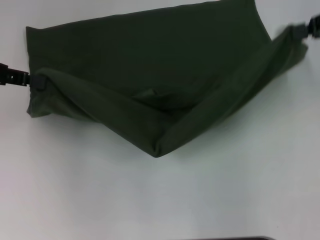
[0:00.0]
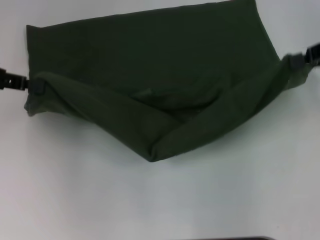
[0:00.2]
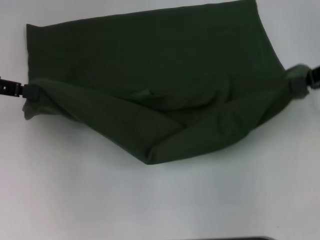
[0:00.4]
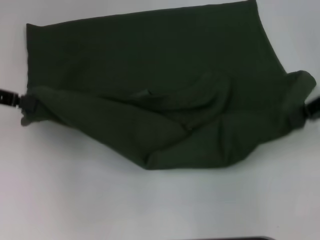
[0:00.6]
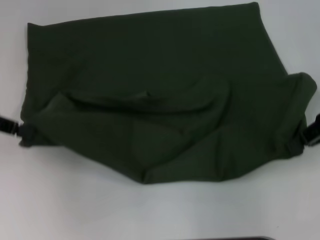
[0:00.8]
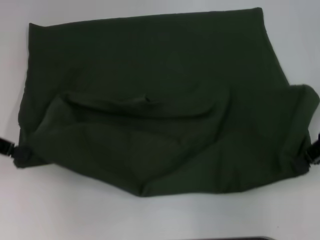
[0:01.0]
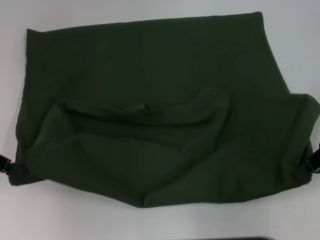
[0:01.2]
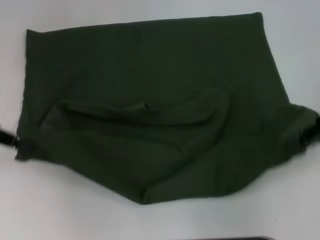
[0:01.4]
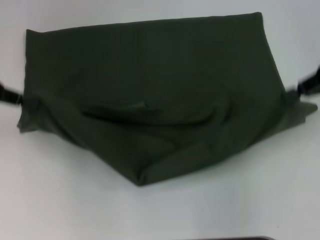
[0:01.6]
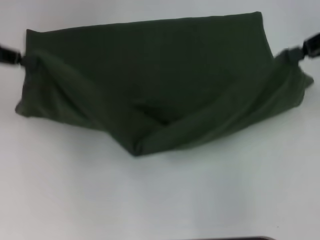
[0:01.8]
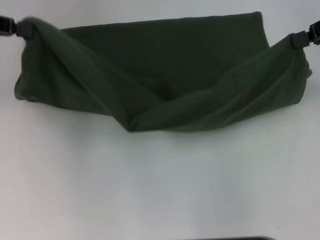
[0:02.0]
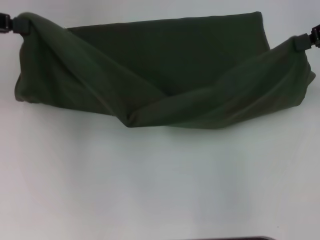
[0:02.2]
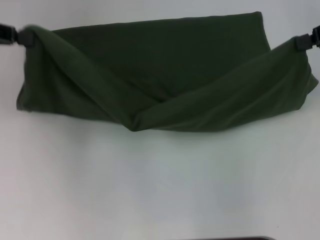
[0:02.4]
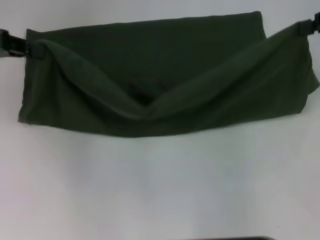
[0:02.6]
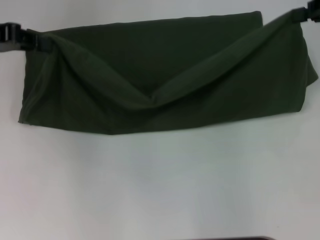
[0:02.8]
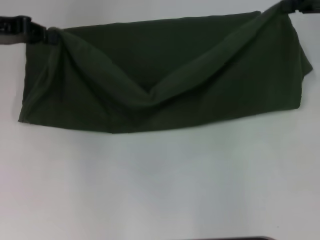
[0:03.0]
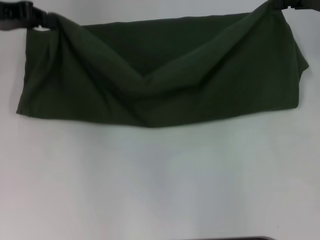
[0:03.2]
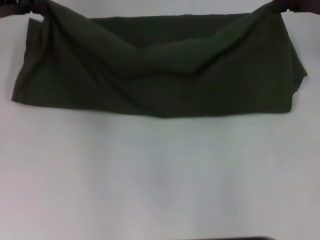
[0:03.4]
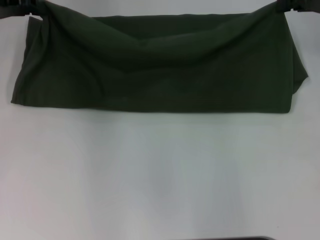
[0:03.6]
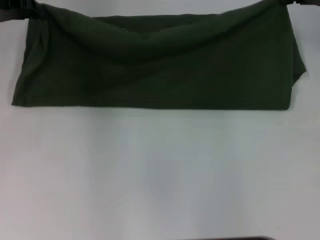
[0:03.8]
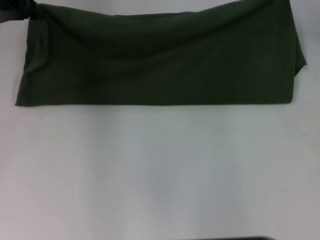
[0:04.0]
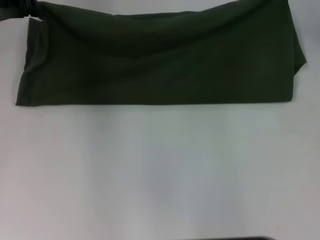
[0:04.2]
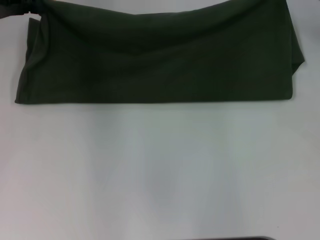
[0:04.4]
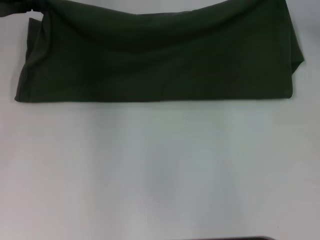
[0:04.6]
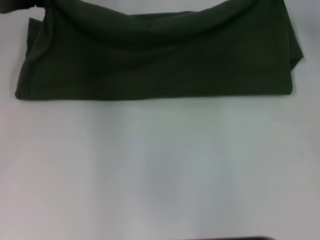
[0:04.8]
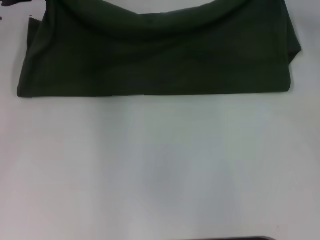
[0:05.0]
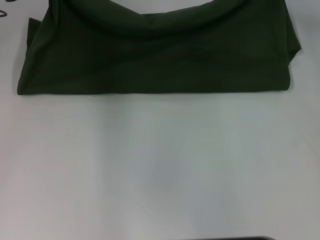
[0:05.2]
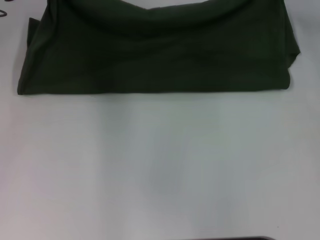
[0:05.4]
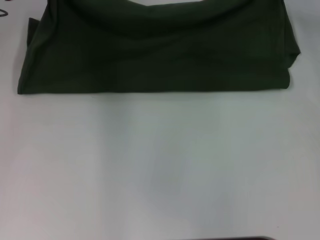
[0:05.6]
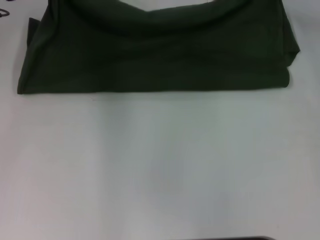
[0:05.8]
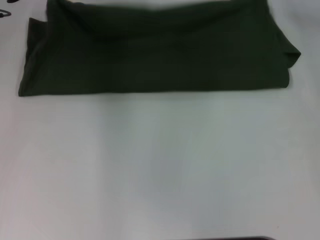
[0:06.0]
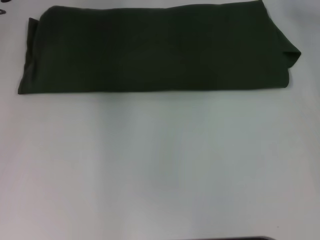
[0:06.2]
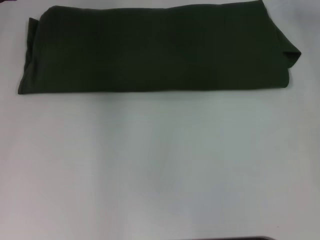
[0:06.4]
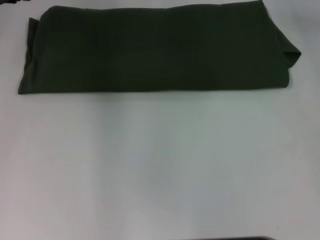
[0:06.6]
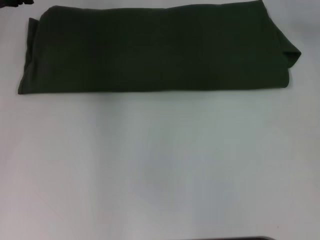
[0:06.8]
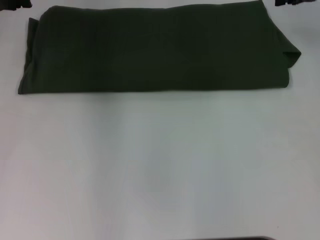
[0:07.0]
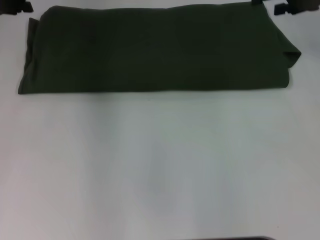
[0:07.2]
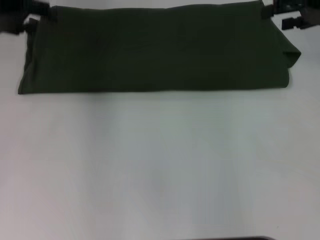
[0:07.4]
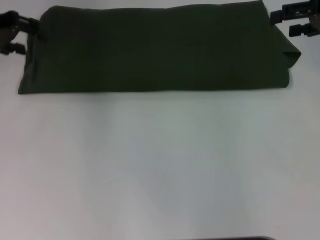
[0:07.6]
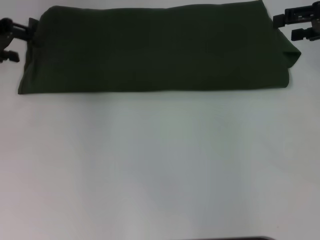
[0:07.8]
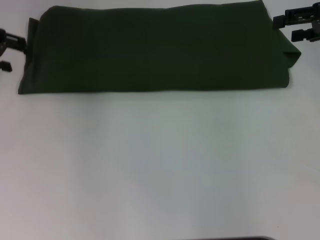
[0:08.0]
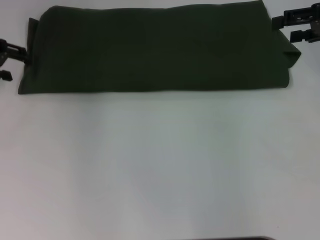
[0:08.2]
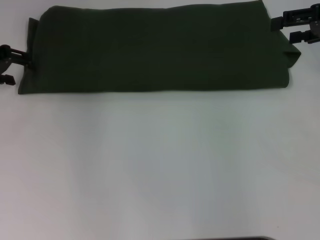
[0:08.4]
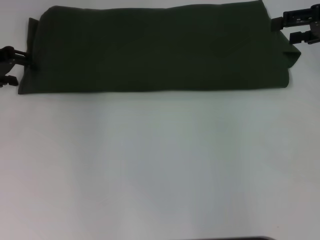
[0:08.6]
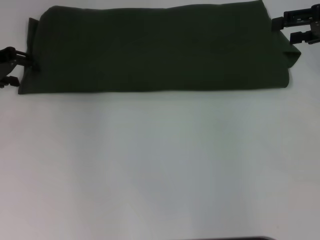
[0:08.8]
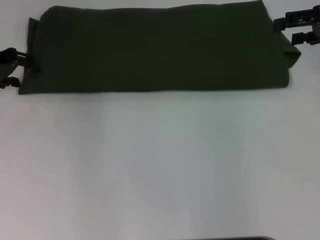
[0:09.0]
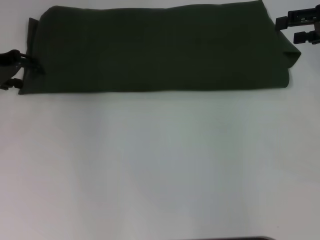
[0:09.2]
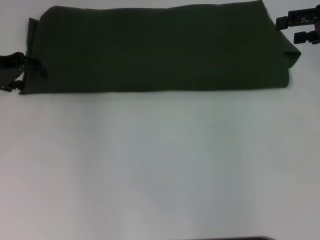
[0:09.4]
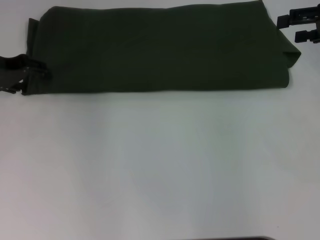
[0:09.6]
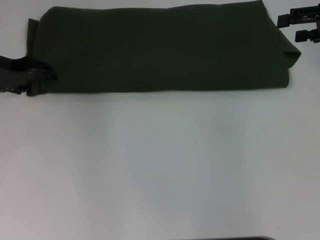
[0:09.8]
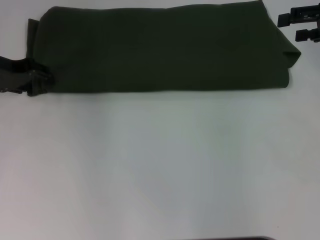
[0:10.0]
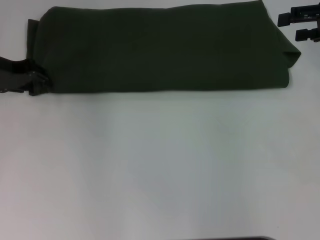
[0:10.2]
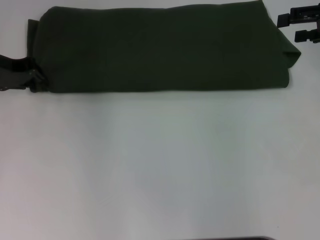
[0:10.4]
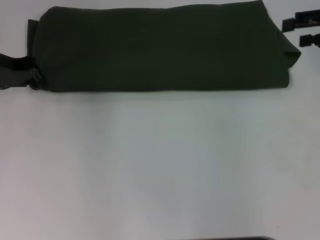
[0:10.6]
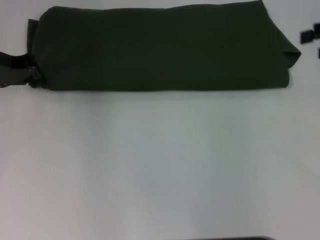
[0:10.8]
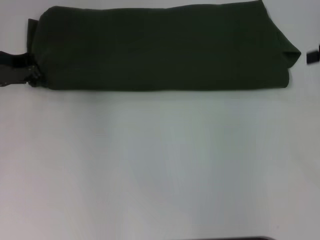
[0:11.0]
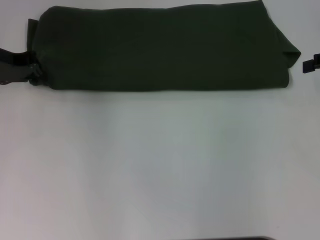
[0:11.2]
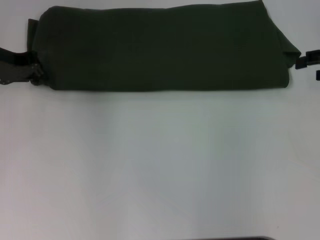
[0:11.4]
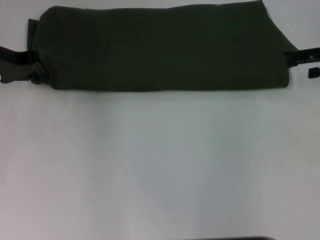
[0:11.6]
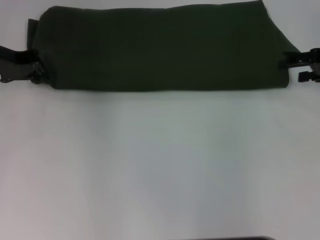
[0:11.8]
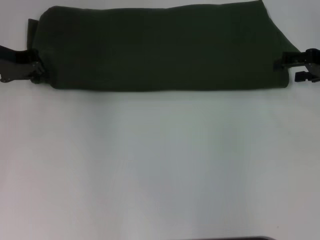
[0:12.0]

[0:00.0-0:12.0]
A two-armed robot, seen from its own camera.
Step, 0:00.0 to 0:06.4: Fold the clothes with your left hand.
Step, 0:00.0 to 0:06.4: Fold the clothes with your right hand.
0:01.6 to 0:03.0: The two grippers go about 5 cm forward.
0:03.0 to 0:04.4: The right gripper shifts by roughly 5 cm.
0:04.4 to 0:06.0: There are only small adjustments of the grippers.
0:06.0 to 0:07.6: The right gripper heads backward, covering some 5 cm, and opens its fingers; the left gripper travels to the left by roughly 5 cm, and opens.
0:07.6 to 0:09.0: The left gripper shifts about 5 cm downward.
0:09.0 to 0:10.4: The grippers stay close to where they were, moving slightly.
0:10.4 to 0:12.0: The left gripper closes, while the right gripper heads downward, covering roughly 5 cm.

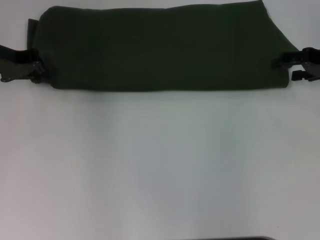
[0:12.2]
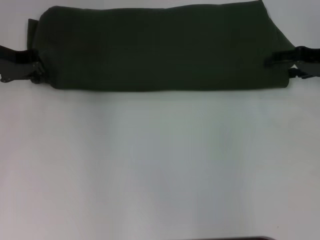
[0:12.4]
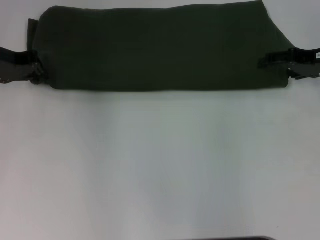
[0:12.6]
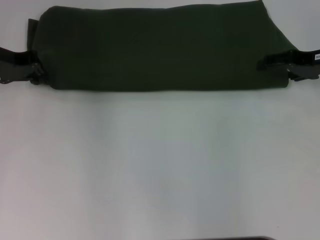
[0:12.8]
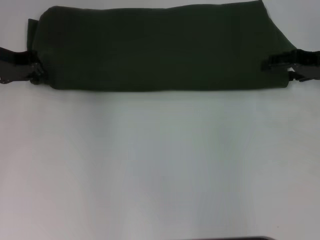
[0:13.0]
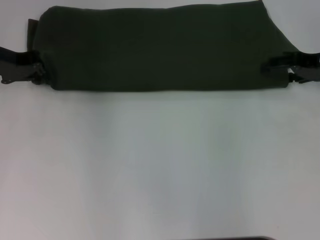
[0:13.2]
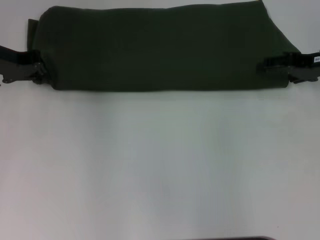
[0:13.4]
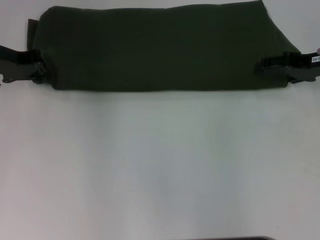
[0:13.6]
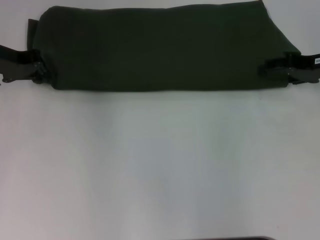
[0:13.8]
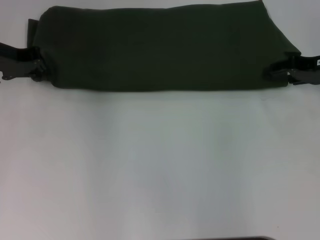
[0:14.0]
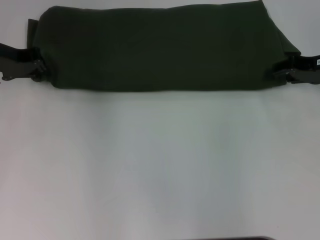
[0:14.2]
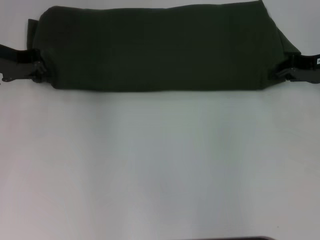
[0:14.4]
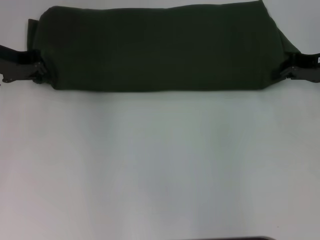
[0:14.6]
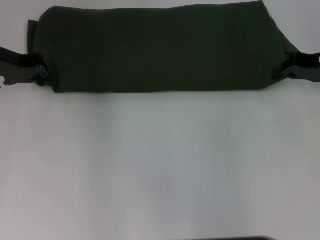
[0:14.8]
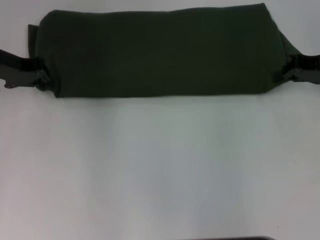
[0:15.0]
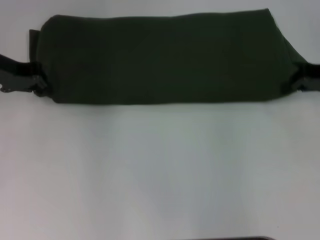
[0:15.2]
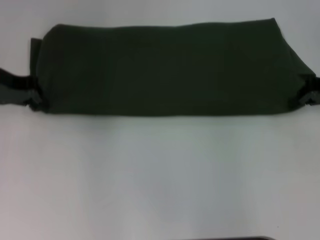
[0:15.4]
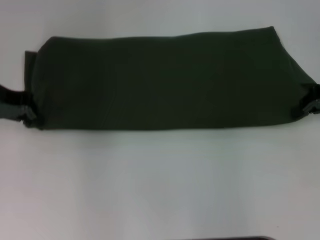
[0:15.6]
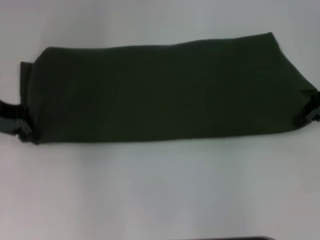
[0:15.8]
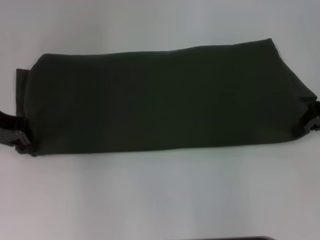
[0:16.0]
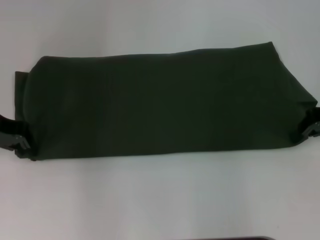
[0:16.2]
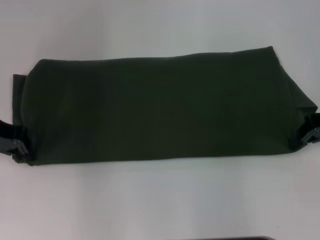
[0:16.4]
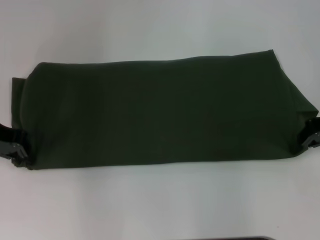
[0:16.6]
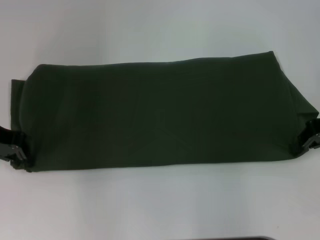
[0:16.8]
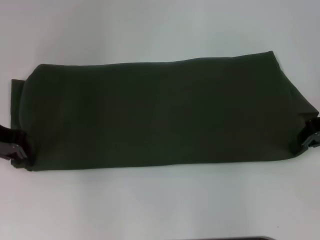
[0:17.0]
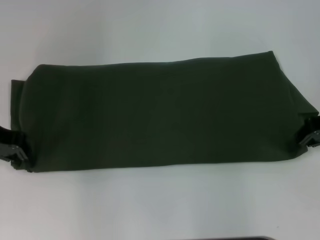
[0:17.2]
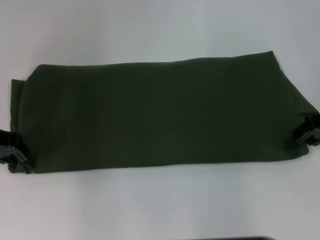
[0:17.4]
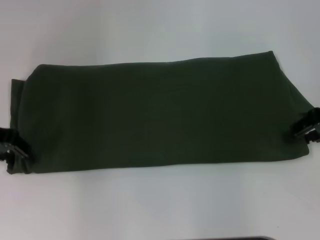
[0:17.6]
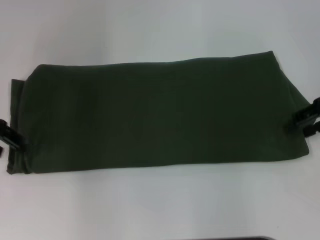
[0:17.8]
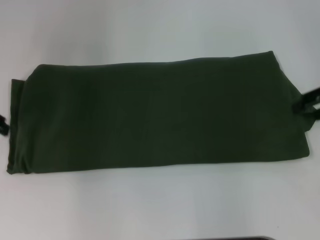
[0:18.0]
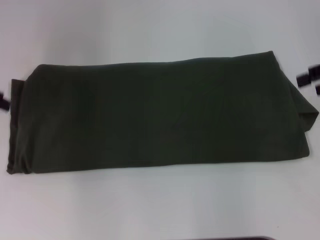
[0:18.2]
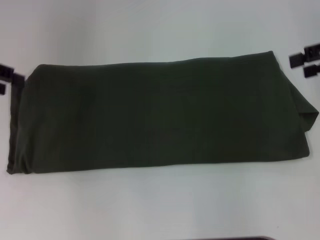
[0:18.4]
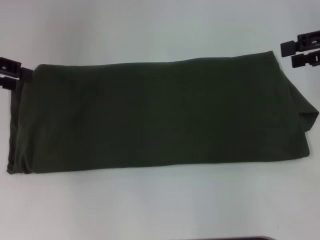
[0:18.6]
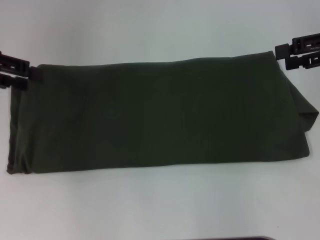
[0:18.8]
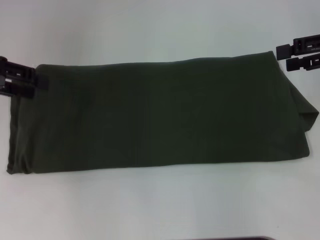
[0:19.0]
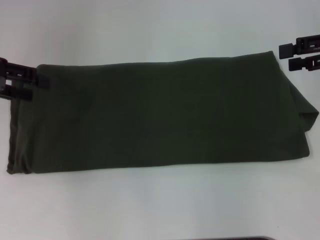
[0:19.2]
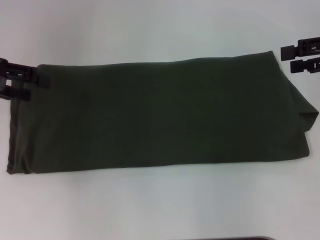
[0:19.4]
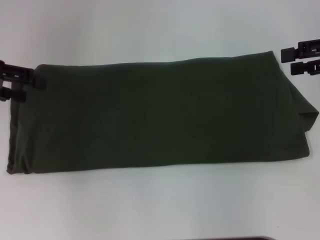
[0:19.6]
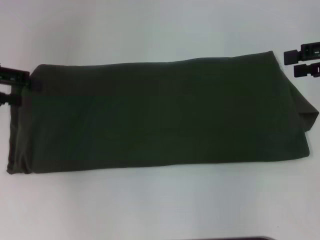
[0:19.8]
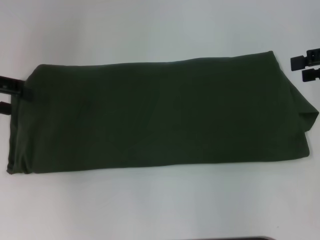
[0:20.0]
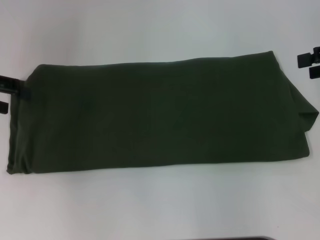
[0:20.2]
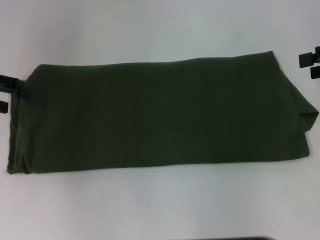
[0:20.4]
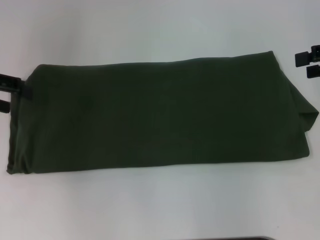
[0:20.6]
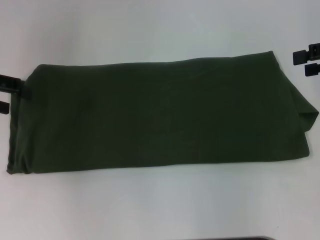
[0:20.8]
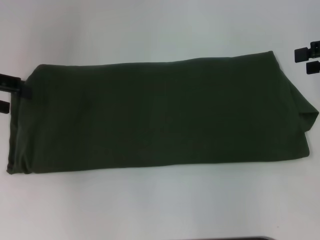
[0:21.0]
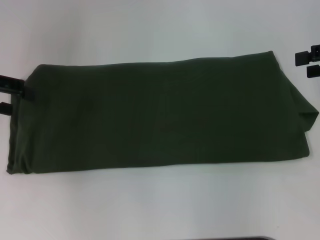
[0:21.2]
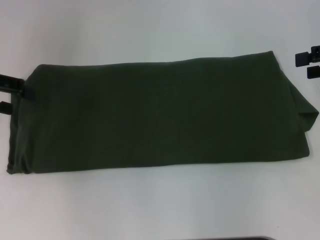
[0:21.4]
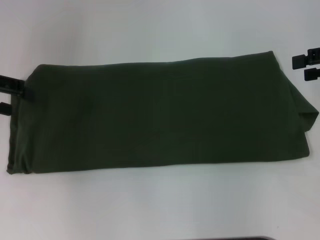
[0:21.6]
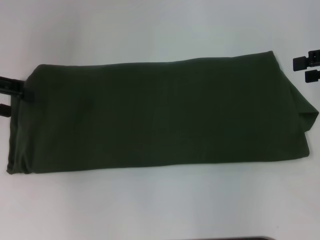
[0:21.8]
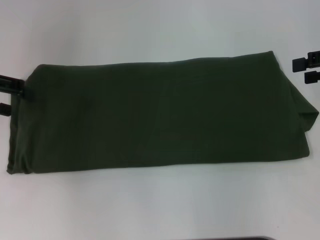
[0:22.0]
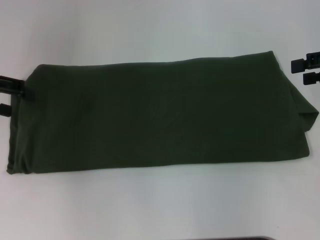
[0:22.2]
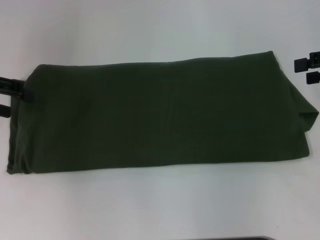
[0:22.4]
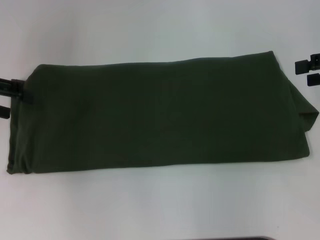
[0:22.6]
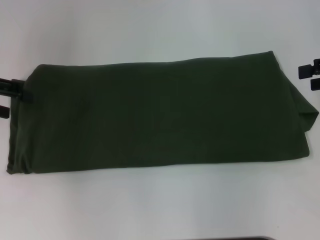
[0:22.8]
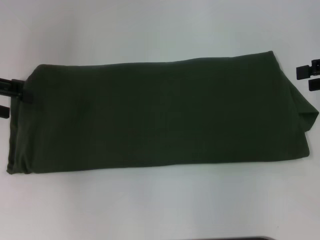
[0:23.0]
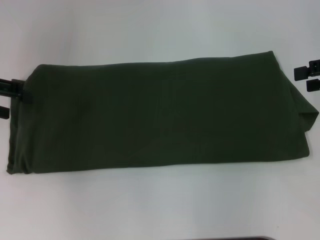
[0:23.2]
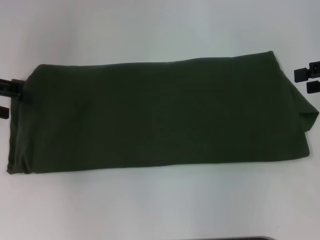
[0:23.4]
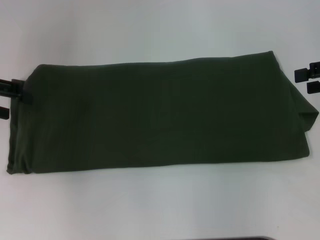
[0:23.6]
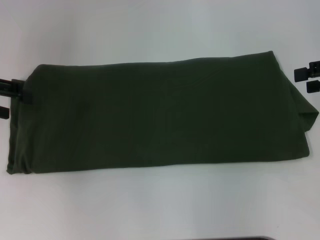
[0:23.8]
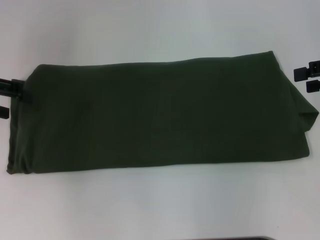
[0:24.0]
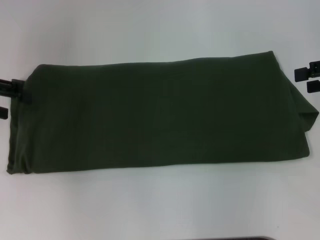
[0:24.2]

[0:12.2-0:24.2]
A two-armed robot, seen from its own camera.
Step, 0:12.2 to 0:18.0: Pull the clothes with your left hand.
Step, 0:12.2 to 0:18.0: Pull the clothes with your right hand.
0:13.8 to 0:15.2: The right gripper closes its fingers.
0:15.2 to 0:16.6: The left gripper goes approximately 5 cm backward.
0:16.6 to 0:18.2: Both grippers move upward, about 5 cm. The right gripper opens up. Meanwhile the left gripper opens its fingers.
0:19.8 to 0:21.2: The grippers stay close to where they were, moving slightly.
0:21.2 to 0:22.6: Neither gripper changes place.
0:22.6 to 0:24.2: Both grippers stay put.
